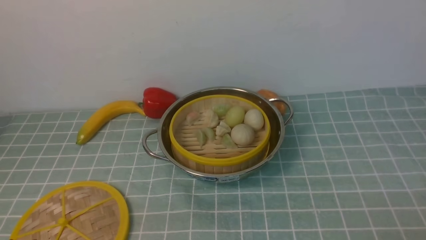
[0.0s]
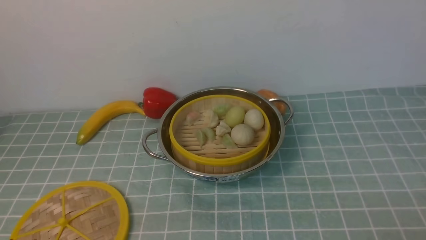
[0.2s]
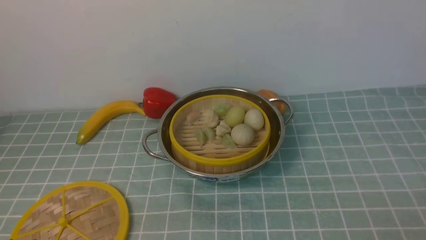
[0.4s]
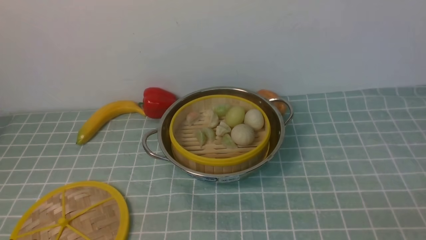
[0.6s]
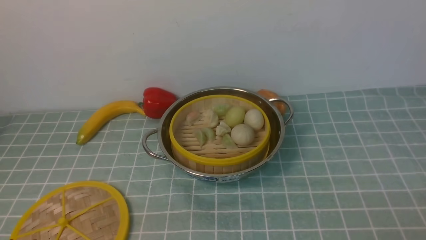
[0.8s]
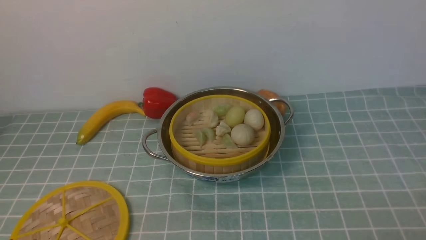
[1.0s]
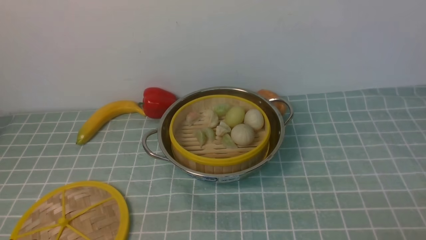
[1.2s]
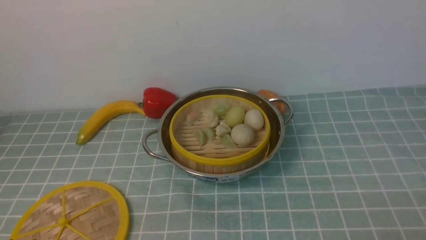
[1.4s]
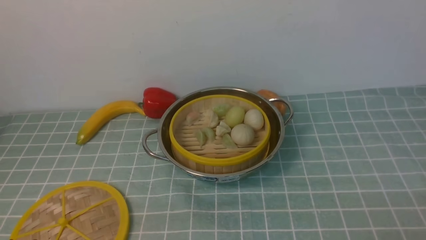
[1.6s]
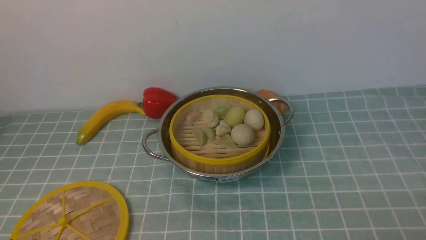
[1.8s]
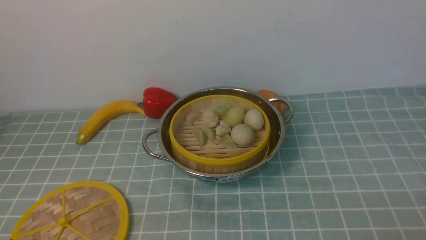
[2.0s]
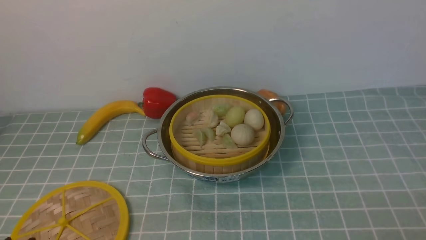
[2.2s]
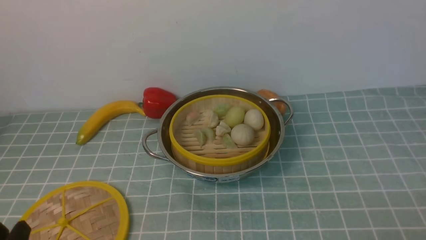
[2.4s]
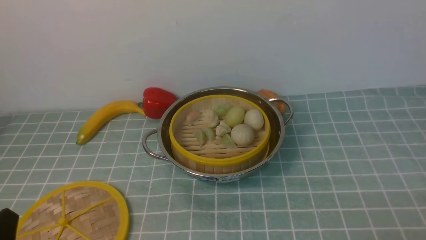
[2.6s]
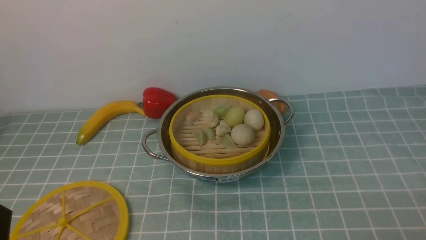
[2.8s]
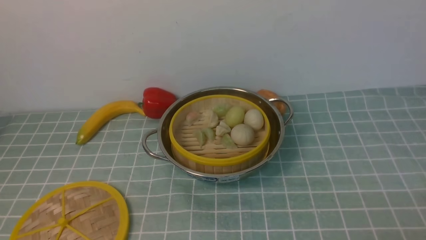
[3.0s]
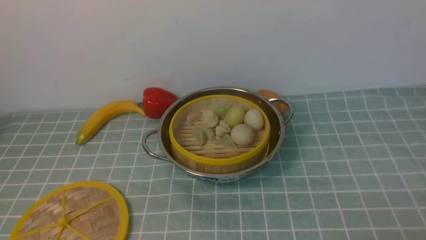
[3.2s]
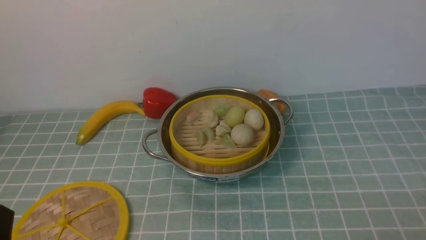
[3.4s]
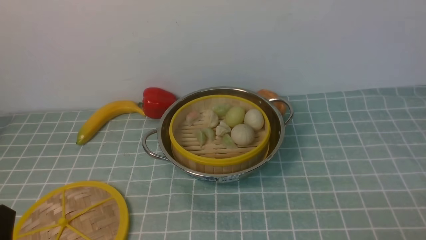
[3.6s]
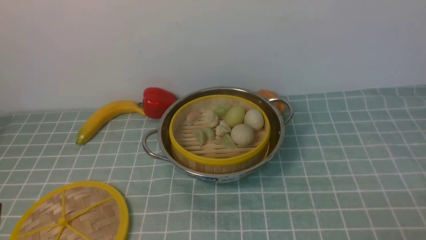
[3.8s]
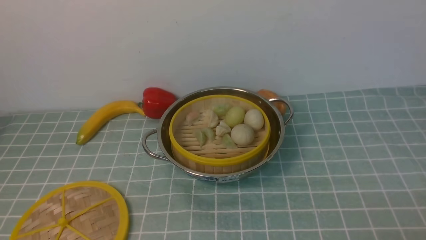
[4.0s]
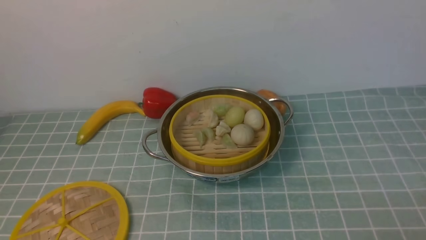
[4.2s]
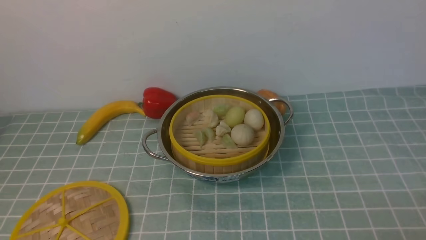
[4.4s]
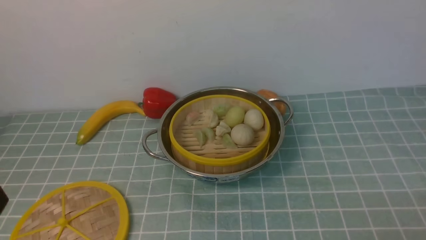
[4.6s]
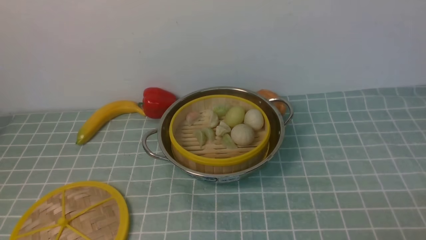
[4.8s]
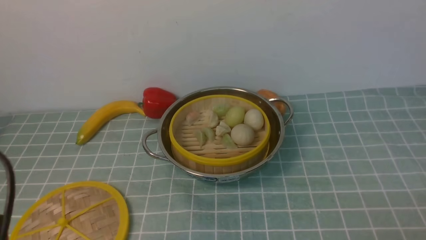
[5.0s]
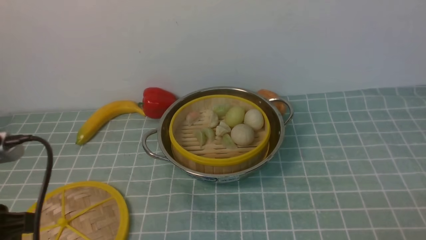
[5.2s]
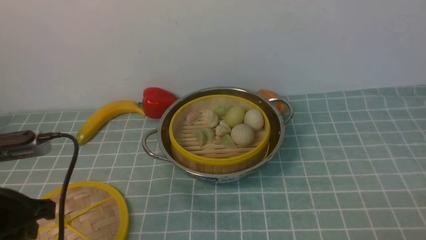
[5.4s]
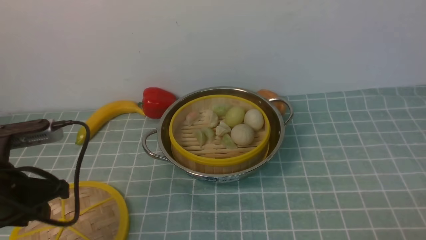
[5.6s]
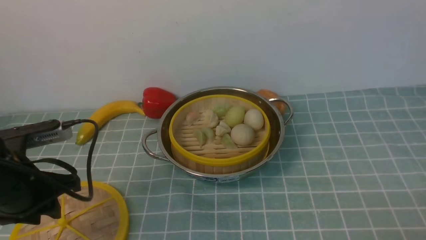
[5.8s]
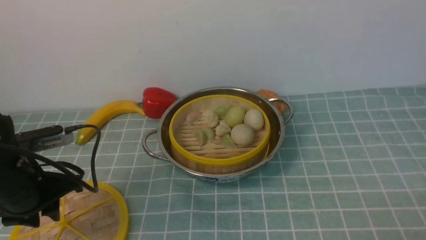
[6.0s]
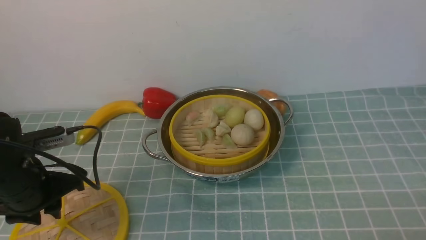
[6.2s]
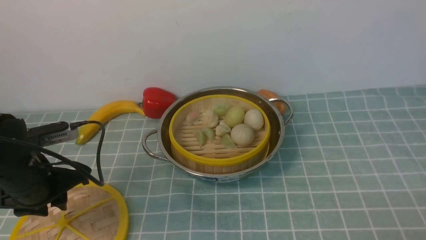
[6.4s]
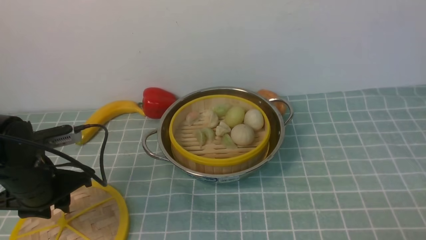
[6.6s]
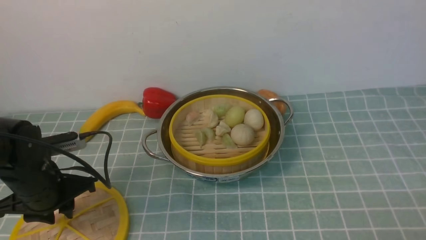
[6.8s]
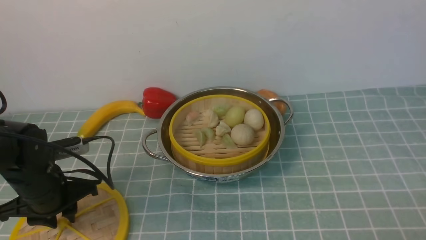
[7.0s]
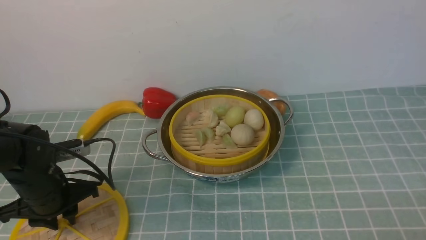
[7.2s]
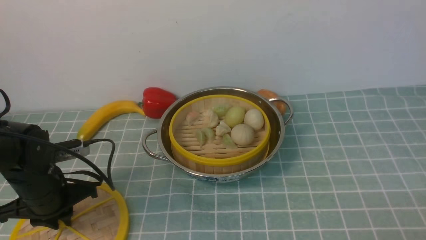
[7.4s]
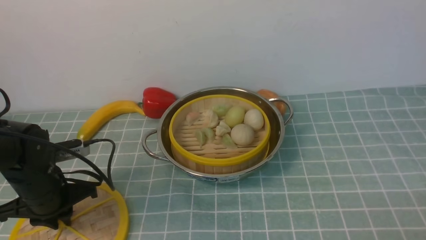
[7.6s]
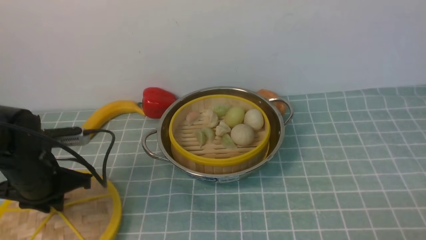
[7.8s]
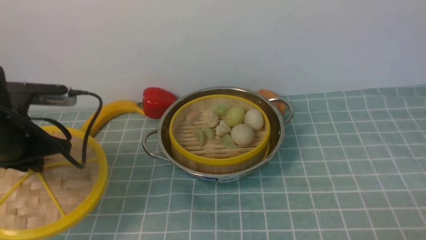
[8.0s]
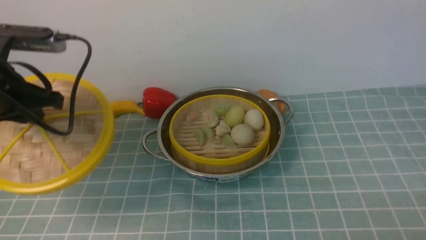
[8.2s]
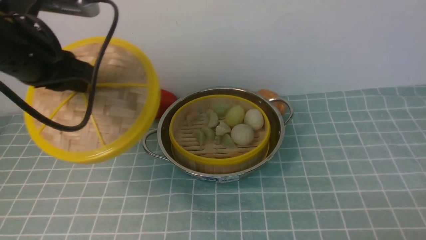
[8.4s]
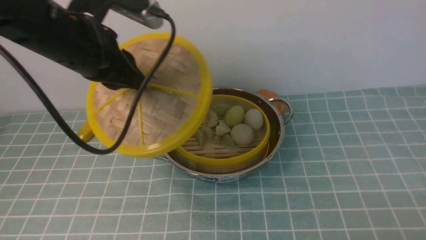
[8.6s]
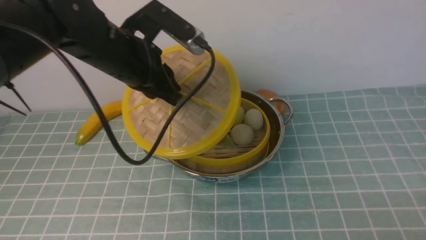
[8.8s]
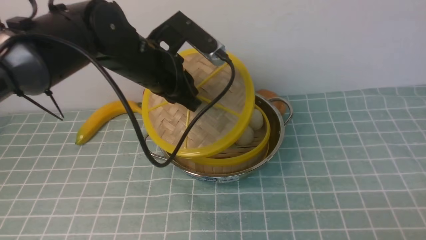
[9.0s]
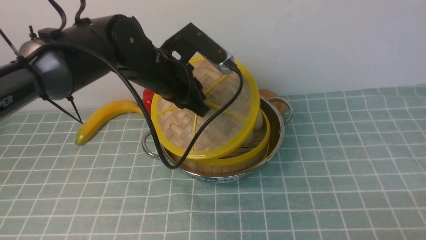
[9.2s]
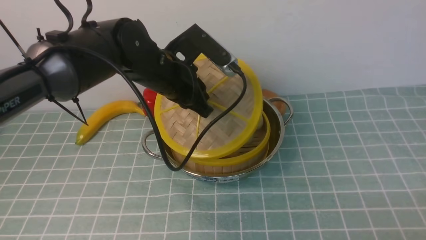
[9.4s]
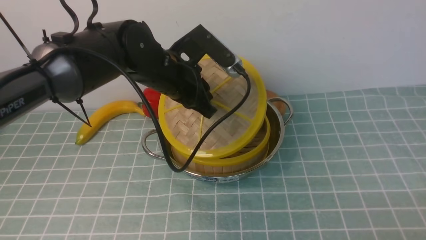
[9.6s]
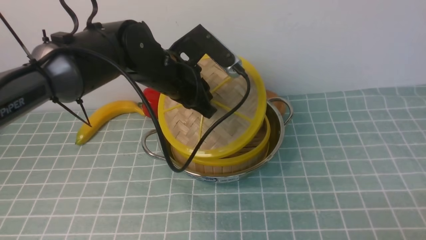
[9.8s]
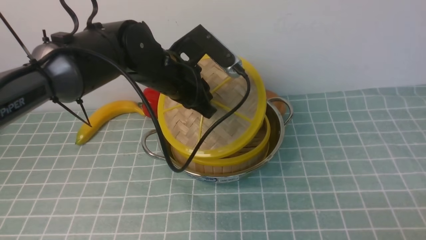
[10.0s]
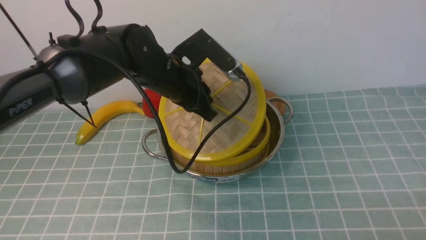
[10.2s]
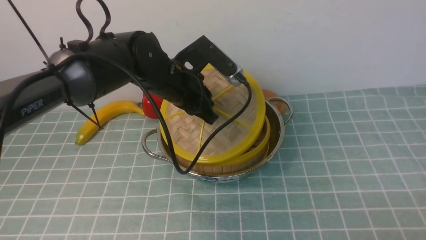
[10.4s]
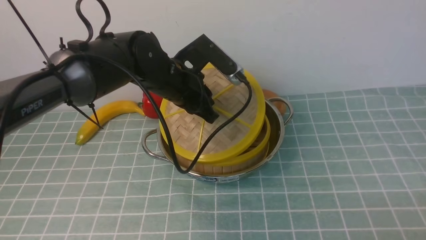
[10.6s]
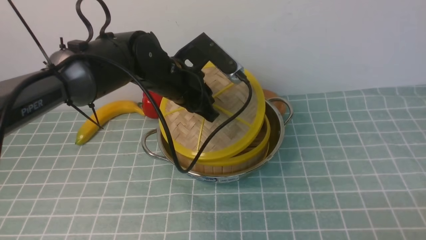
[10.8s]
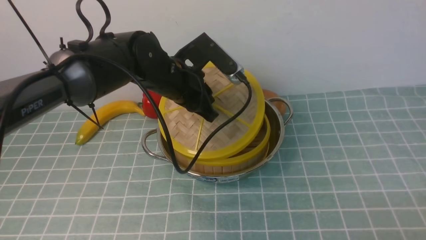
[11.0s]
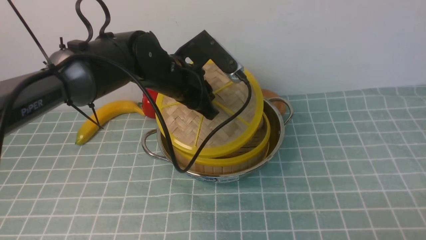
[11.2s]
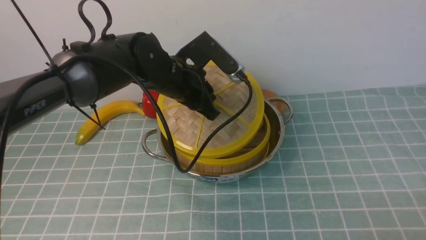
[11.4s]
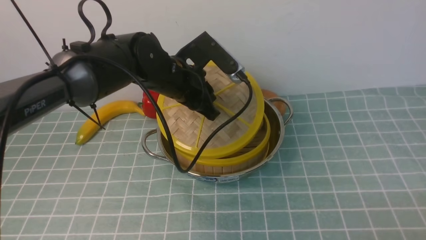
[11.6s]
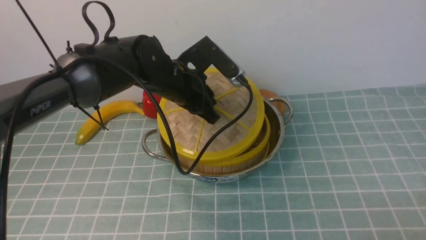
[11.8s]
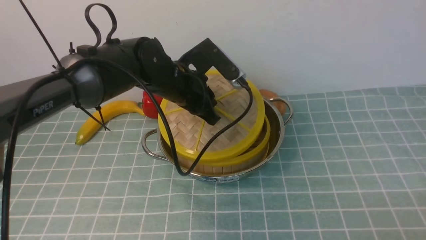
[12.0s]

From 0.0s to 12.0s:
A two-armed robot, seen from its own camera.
Task of the whole recording: place the steamer in the pot on the blue tablecloth, and put the lid on the steamer.
Step, from 0.0s to 8.0s: use the left arm to lift the lid of the steamer.
From 4.4s to 6.0s: The left gripper heads forward, covering roughly 20 cm.
From 6.0s to 7.6s: The left gripper ends up roughly 5 cm from where it was.
From 7.6s to 9.0s: The left gripper heads to the right, upward and forward, covering some 25 cm.
From 9.0s to 10.4s: The left gripper ends up some 5 cm from where it was.
From 10.4s to 12.0s: The grippers stay close to where they were, moving slightly.

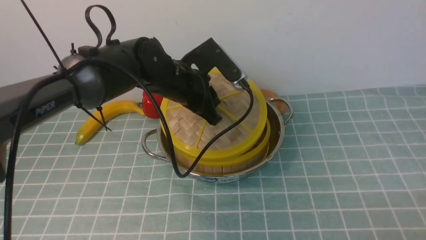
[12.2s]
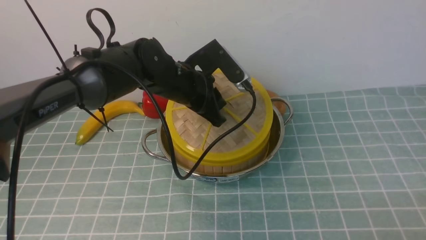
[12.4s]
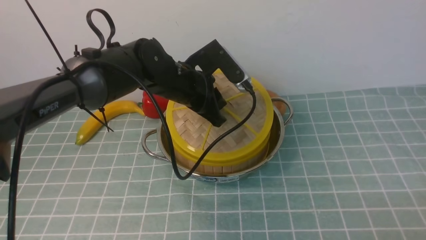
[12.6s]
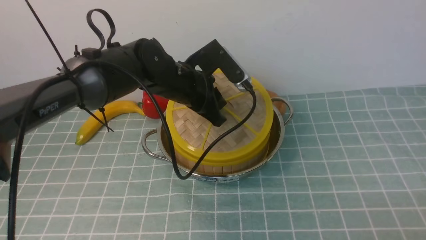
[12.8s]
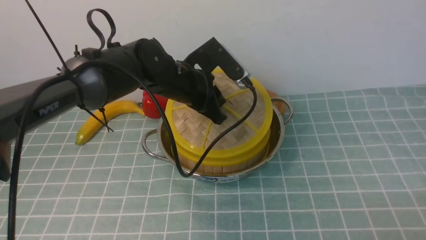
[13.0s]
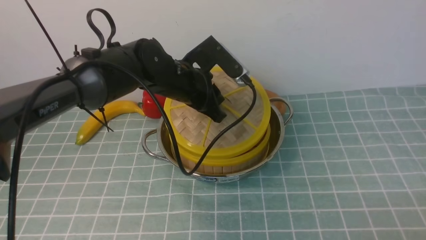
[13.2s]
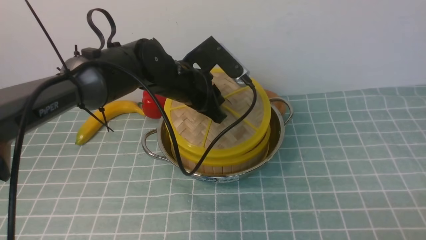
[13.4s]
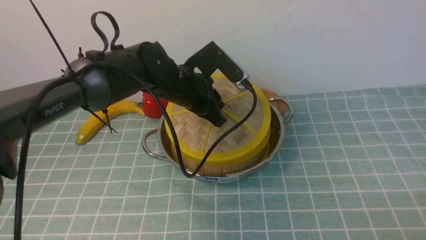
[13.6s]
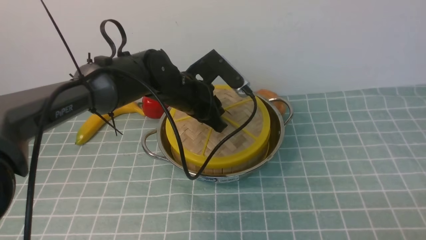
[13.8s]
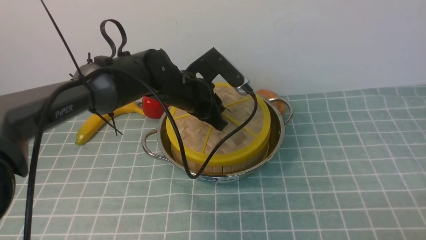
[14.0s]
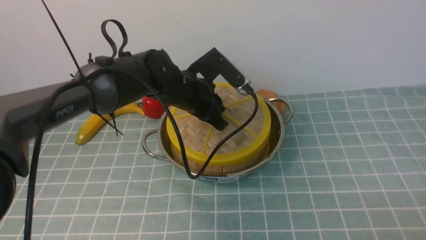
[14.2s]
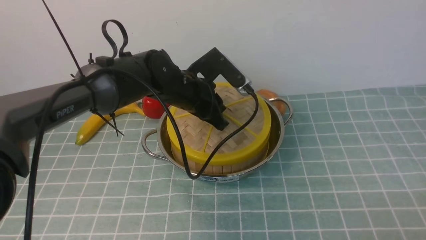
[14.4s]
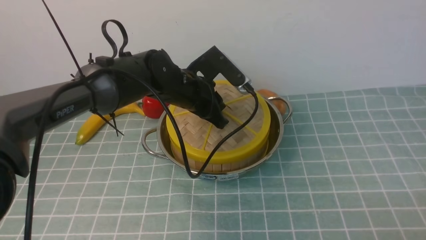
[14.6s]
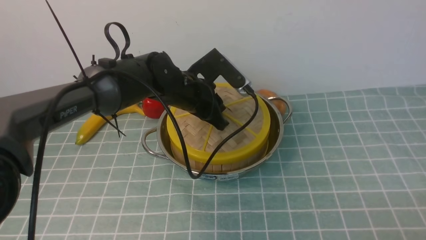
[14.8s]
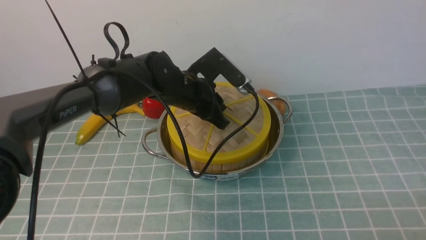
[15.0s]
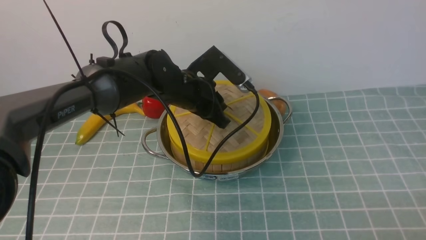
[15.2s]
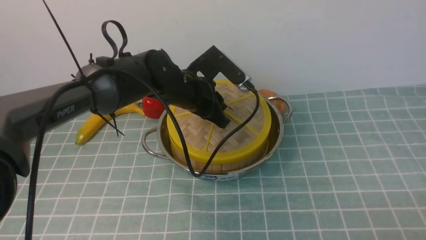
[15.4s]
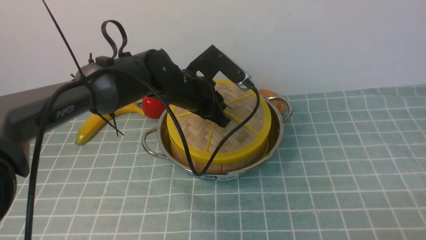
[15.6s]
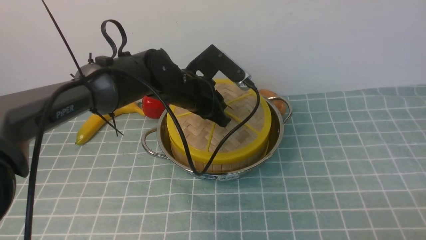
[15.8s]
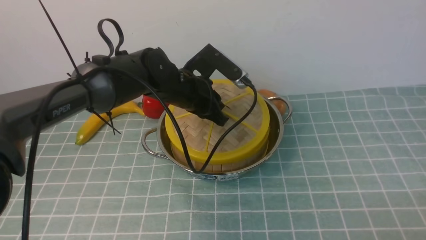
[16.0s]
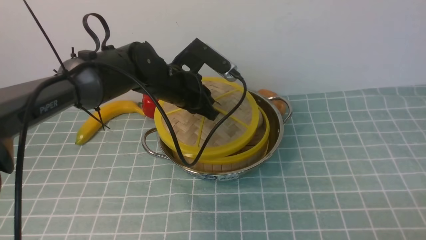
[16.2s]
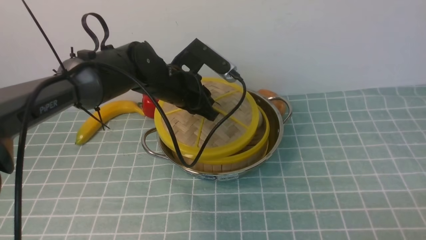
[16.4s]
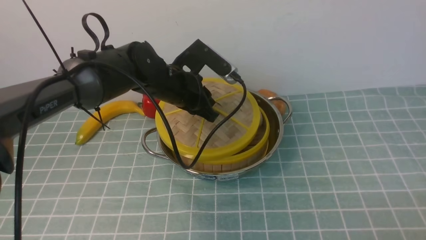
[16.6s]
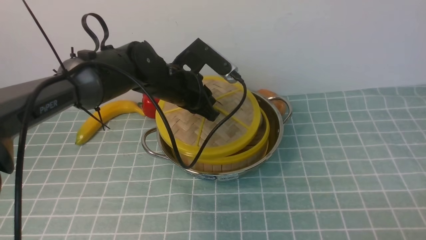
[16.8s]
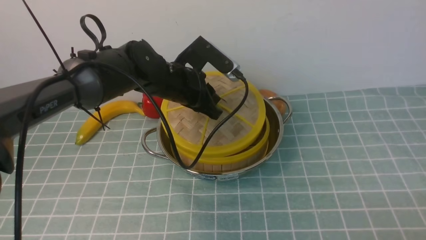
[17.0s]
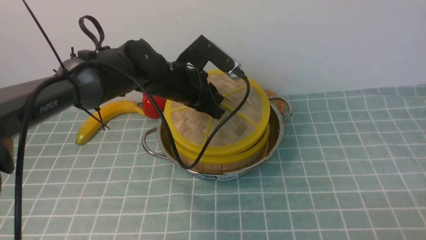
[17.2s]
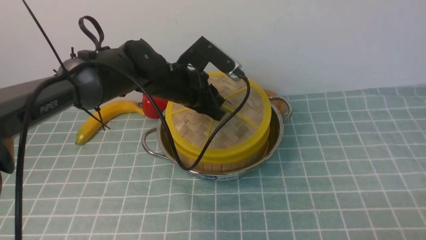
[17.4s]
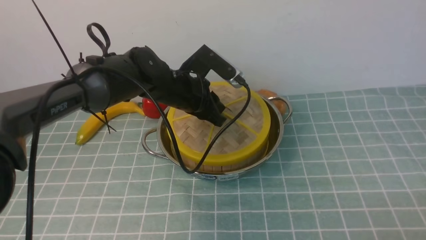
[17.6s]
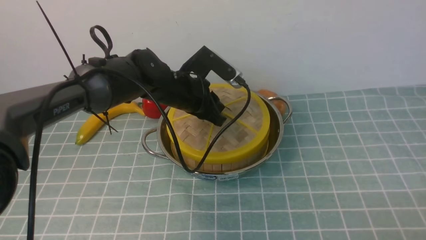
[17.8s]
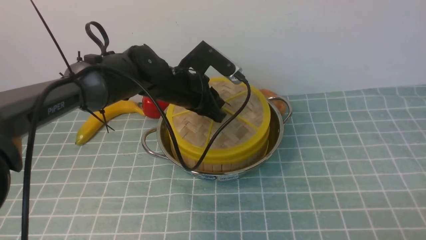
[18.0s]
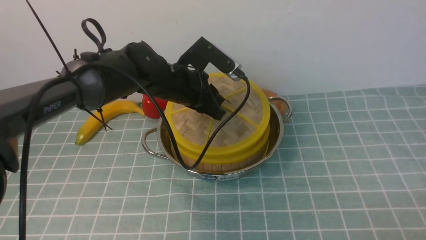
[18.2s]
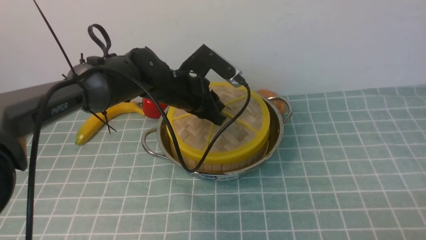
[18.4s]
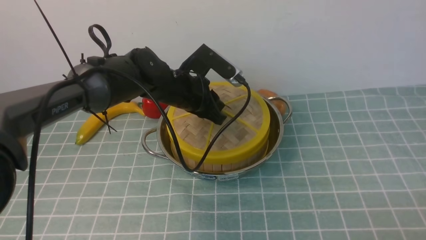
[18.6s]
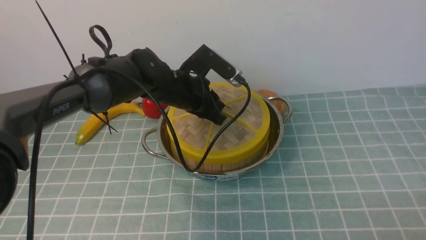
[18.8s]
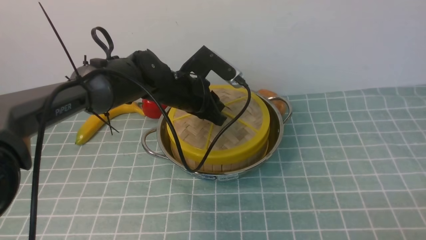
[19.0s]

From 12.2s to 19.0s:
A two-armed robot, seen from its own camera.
Task of the whole recording: place the steamer in the pot on the blue tablecloth, and put the lid on the steamer.
From 12.2s to 13.6s: Both grippers stay put.
From 13.6s to 15.0s: Neither gripper changes place.
From 15.0s to 17.6s: The grippers move only a little.
From 17.6s to 19.0s: Both grippers stay about where they are.
